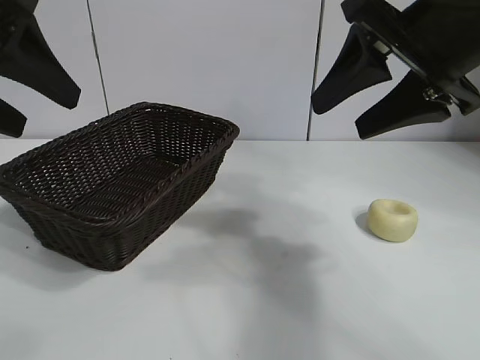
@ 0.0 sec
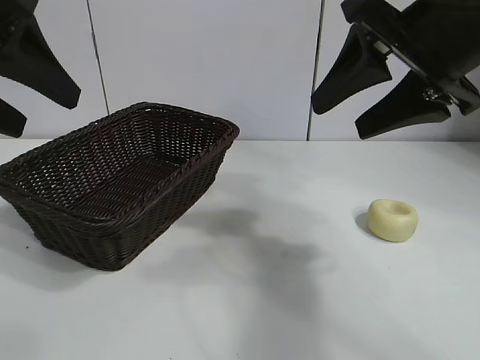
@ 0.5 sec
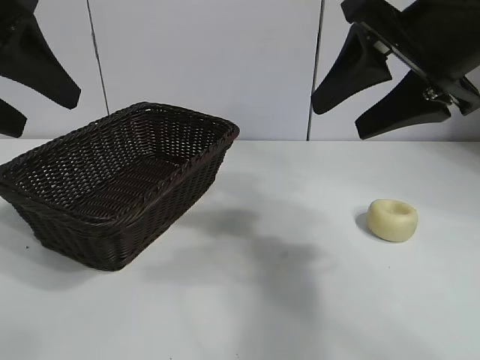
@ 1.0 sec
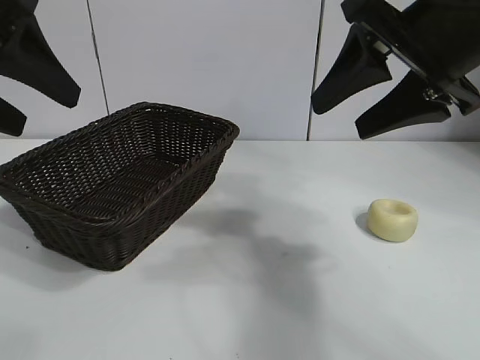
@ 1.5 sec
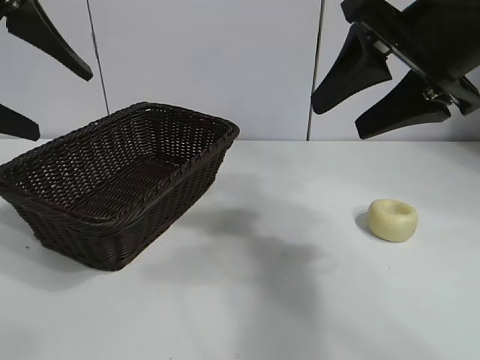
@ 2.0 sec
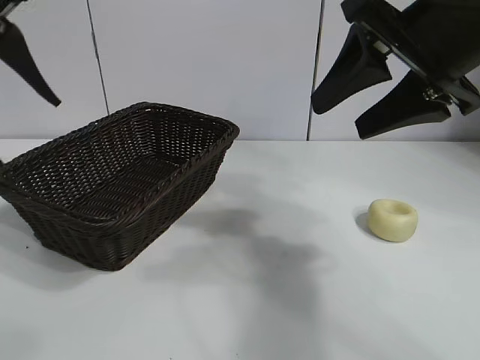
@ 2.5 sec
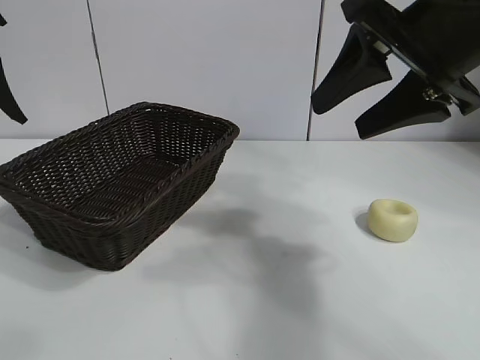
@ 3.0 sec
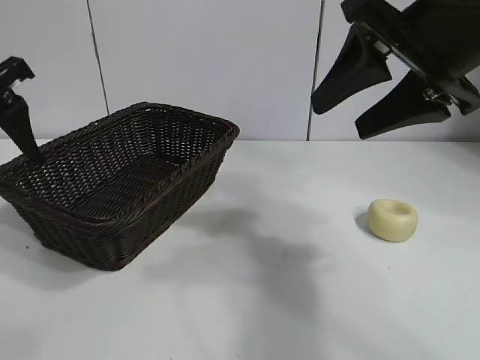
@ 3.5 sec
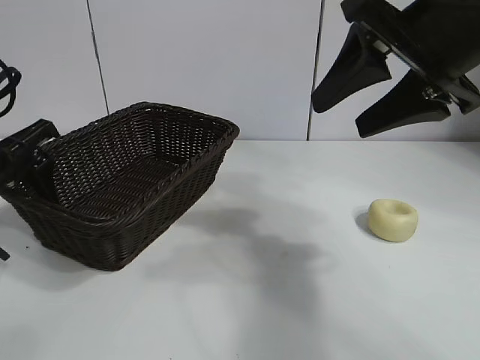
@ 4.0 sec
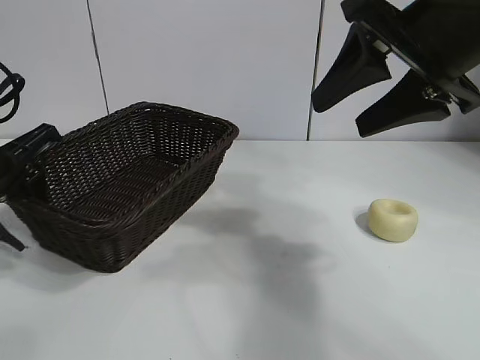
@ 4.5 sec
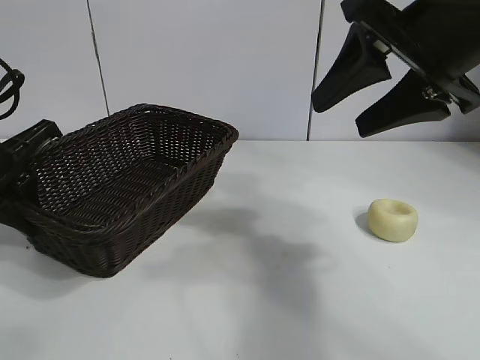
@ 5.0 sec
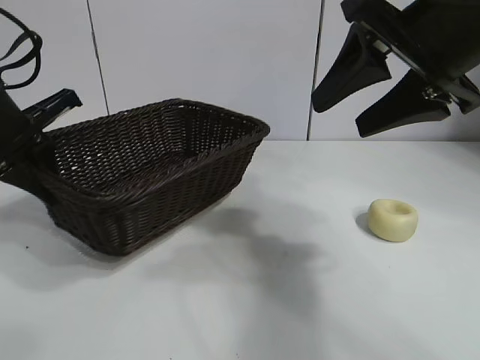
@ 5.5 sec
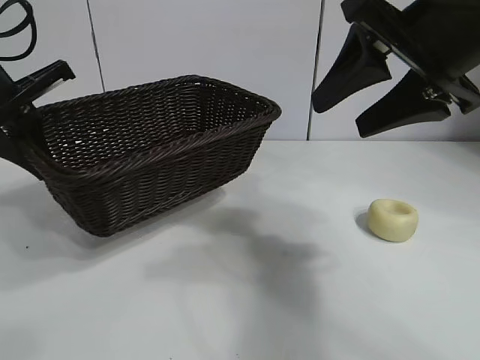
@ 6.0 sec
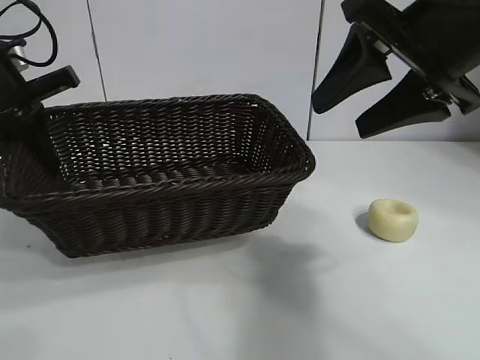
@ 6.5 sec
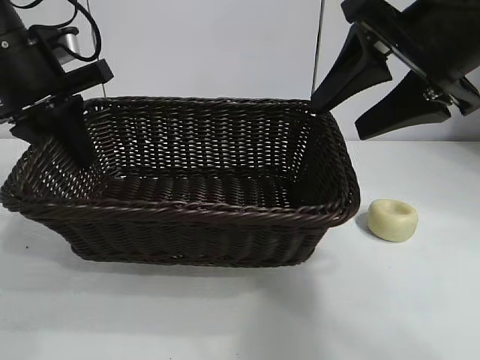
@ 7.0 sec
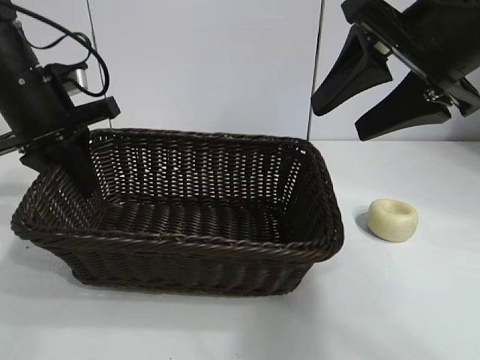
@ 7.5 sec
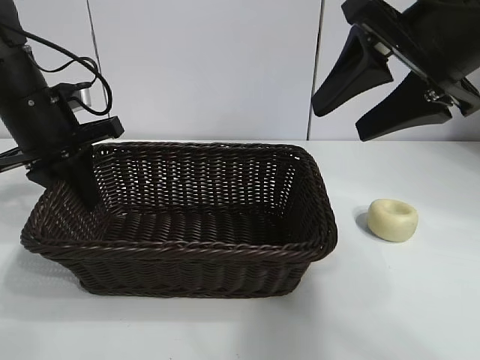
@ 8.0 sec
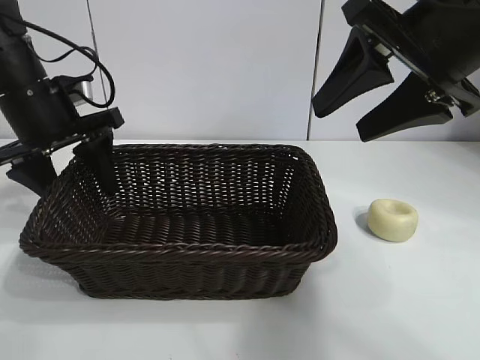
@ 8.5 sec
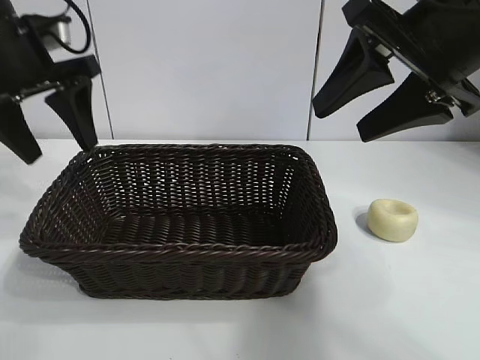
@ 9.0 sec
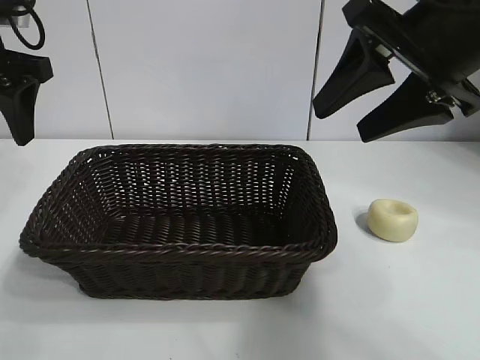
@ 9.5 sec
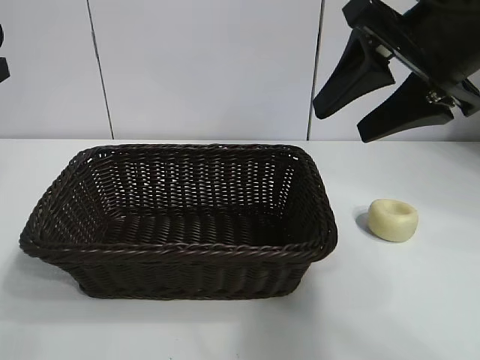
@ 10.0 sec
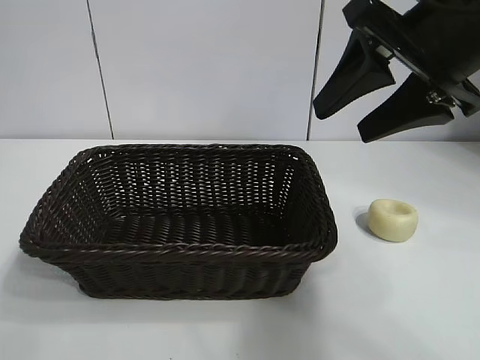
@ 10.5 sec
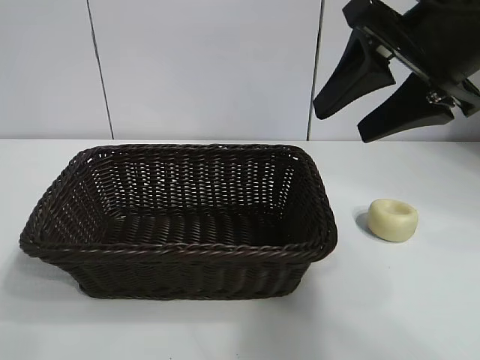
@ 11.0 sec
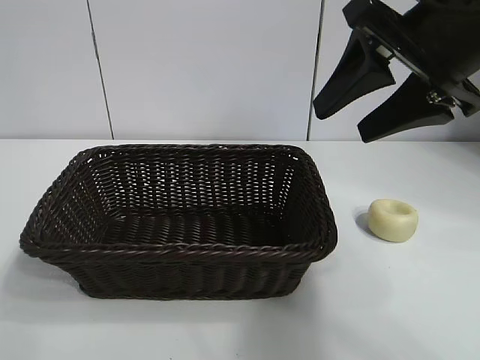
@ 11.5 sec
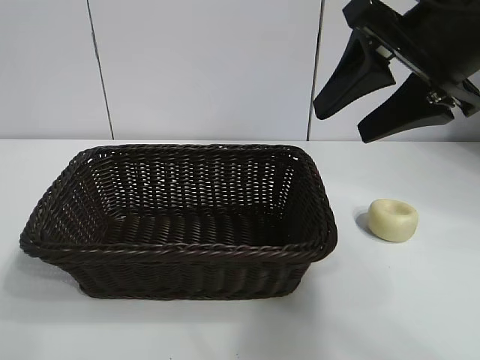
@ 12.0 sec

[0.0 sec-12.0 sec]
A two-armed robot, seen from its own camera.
Task of the whole recording: pick up the egg yolk pastry and put it into the basket.
Step, 2.0 sec to 5.0 sec: Grasp the basket with left gripper.
Step, 5.5 sec to 8.5 sec: Place the basket in the center of view with left gripper.

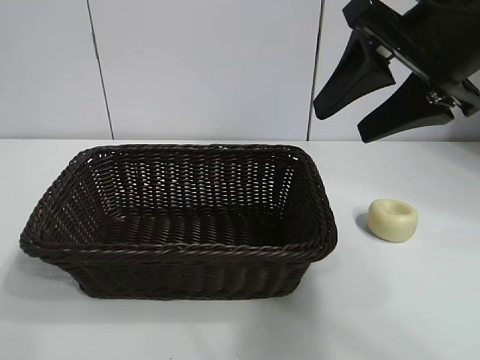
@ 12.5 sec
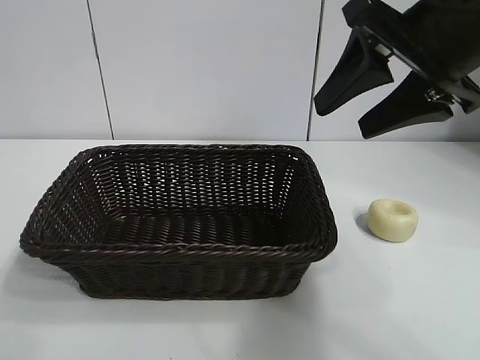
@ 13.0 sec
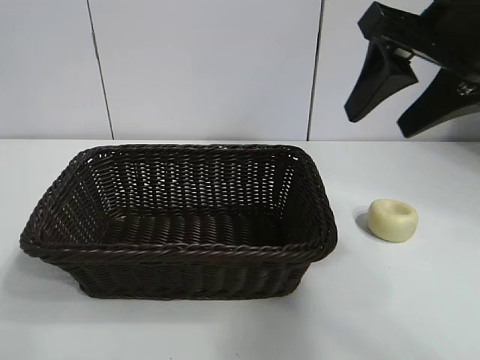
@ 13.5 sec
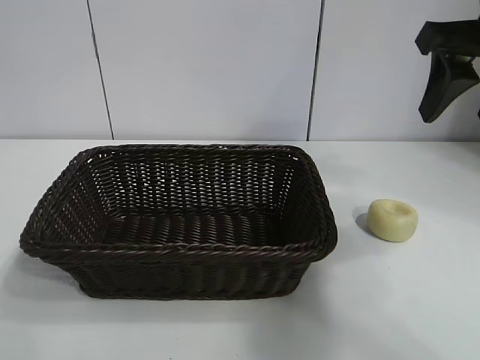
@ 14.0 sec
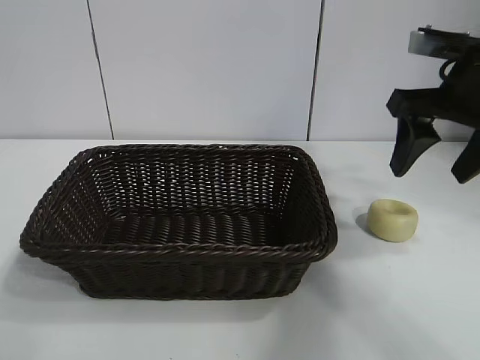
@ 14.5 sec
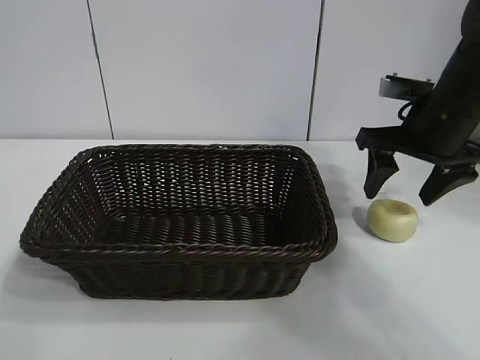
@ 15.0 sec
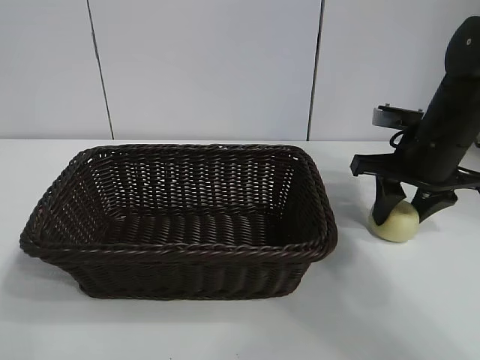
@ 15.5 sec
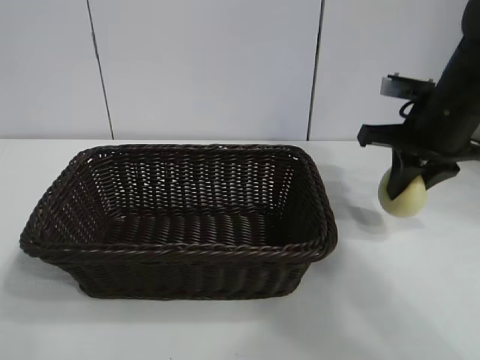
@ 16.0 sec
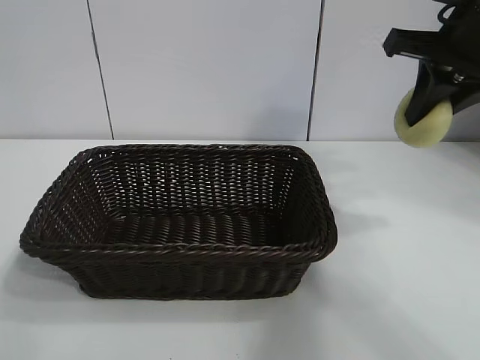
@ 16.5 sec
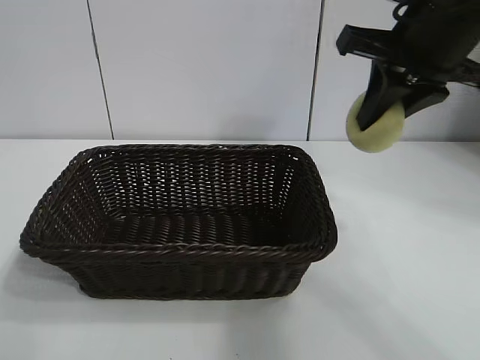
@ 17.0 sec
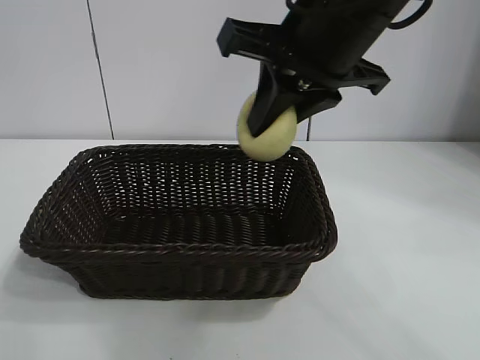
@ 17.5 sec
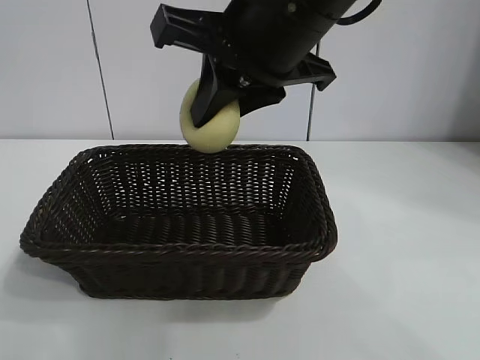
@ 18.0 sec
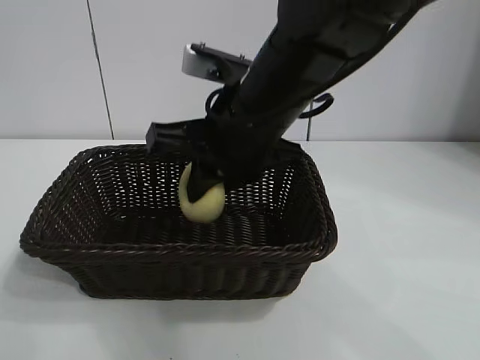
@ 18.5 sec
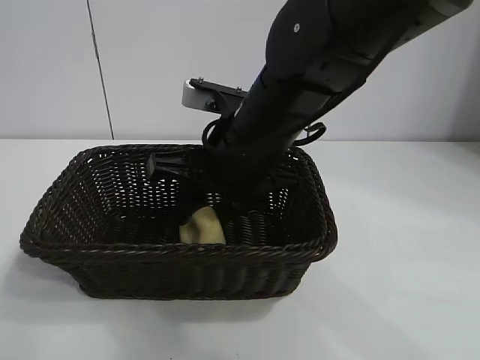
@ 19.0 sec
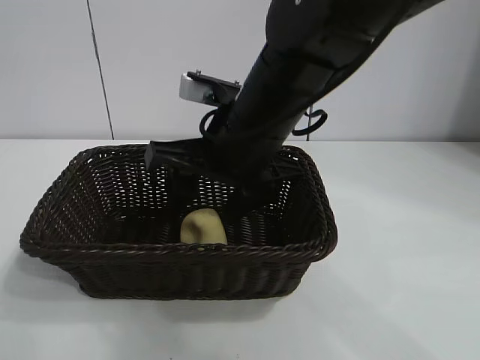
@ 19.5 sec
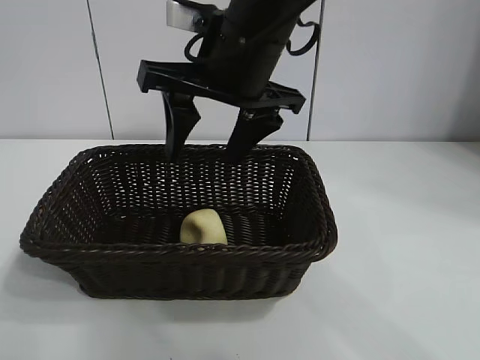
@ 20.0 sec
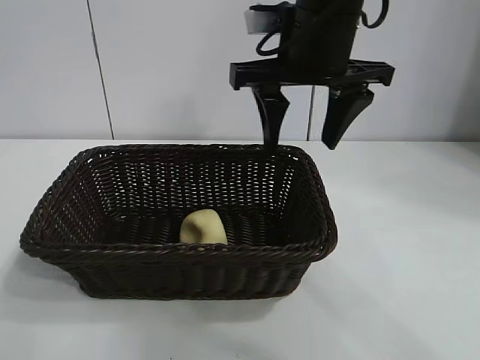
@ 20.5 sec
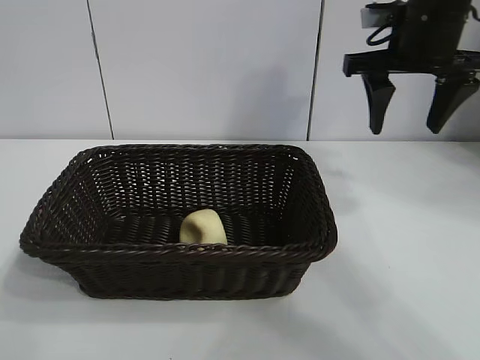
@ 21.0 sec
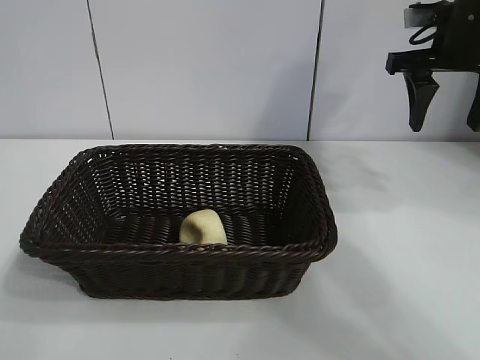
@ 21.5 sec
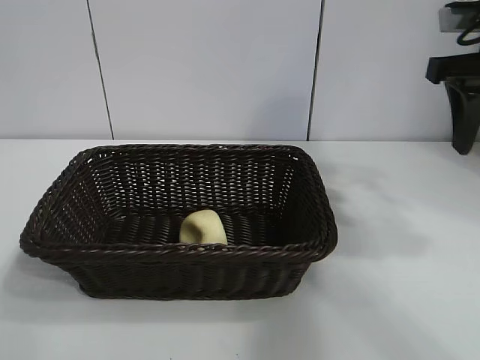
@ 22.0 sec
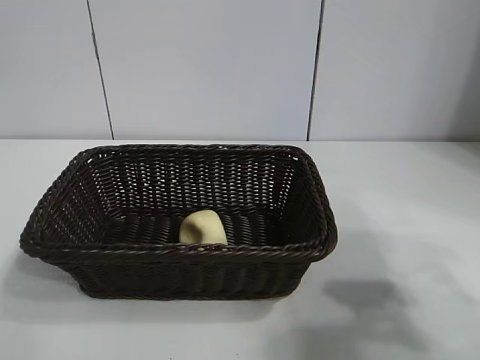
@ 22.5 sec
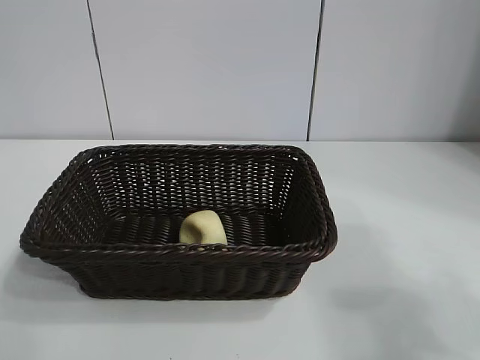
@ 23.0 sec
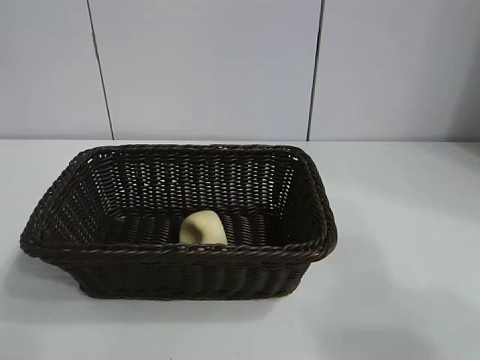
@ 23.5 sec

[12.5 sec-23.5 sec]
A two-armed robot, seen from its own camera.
Task of the whole recording: pick up the egg yolk pastry and put it into the basket.
Step, 12.5 sec to 15.5 sec: Grasp egg yolk pastry with right gripper.
Step, 16.0 sec to 19.5 sec: Place the egg yolk pastry in the basket with right gripper.
